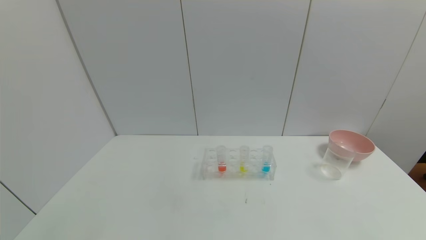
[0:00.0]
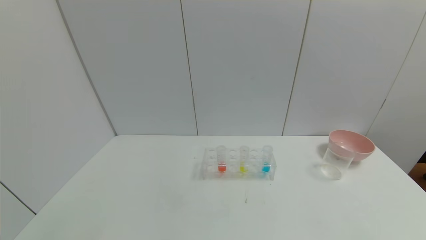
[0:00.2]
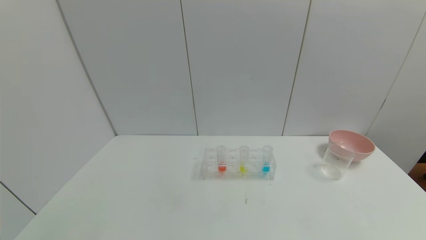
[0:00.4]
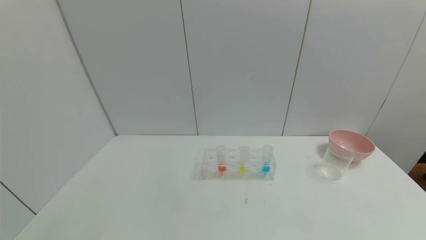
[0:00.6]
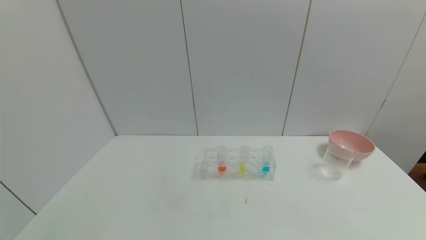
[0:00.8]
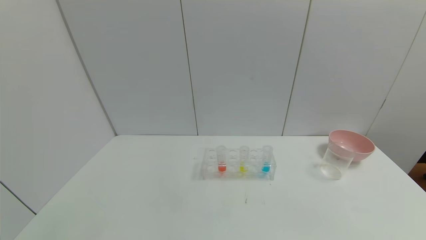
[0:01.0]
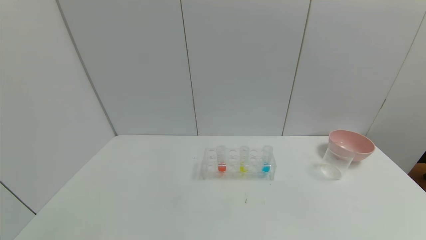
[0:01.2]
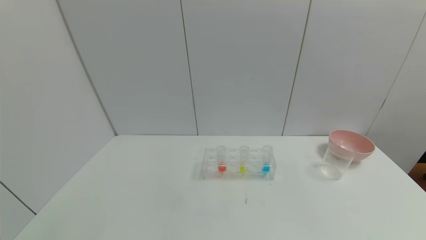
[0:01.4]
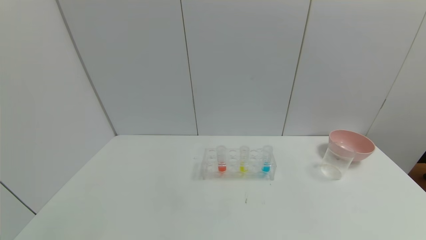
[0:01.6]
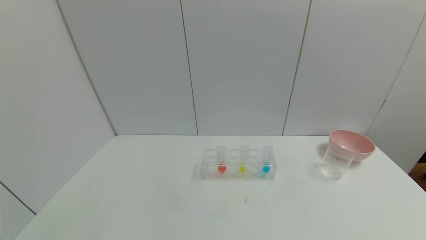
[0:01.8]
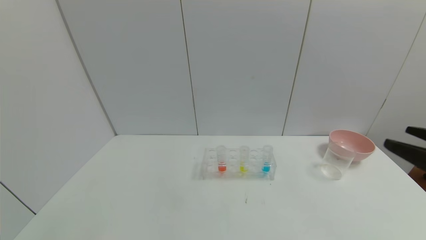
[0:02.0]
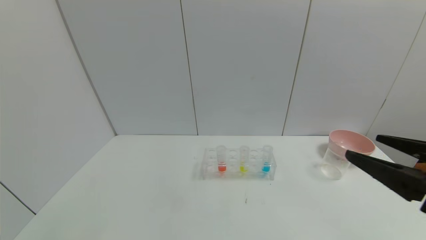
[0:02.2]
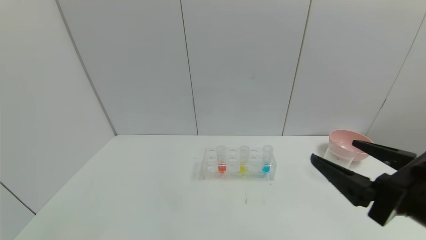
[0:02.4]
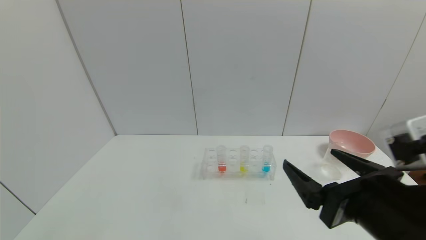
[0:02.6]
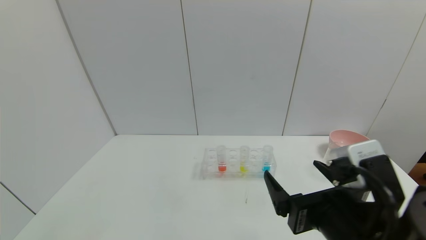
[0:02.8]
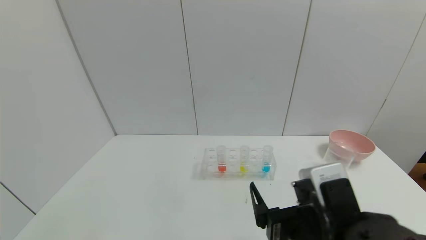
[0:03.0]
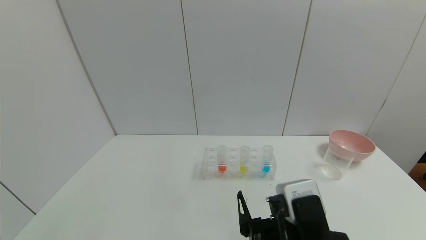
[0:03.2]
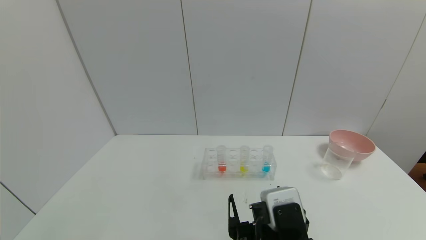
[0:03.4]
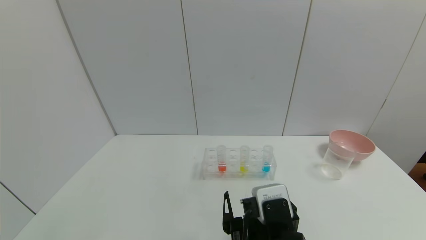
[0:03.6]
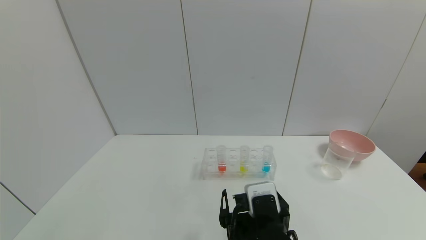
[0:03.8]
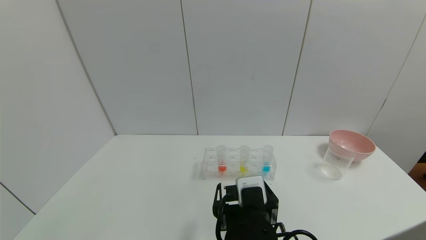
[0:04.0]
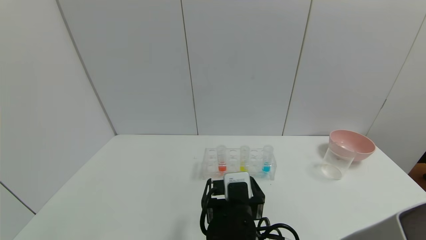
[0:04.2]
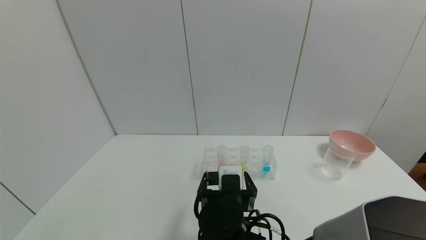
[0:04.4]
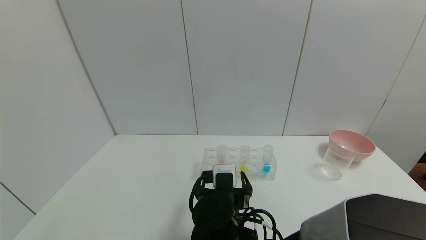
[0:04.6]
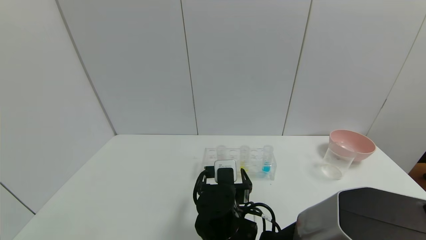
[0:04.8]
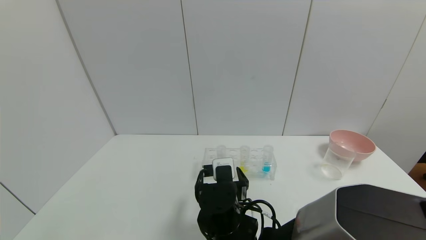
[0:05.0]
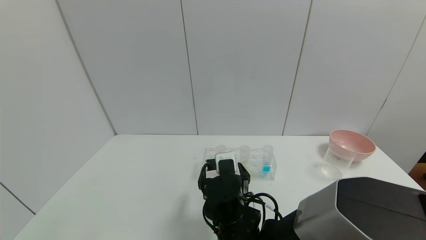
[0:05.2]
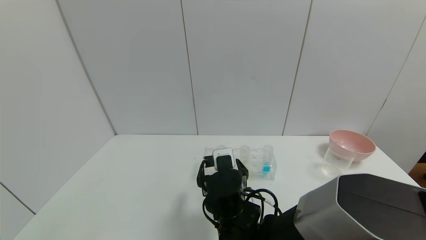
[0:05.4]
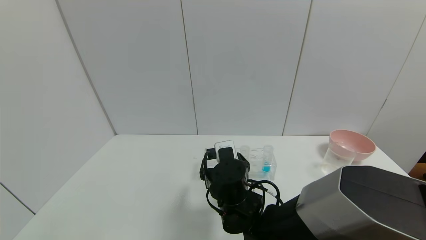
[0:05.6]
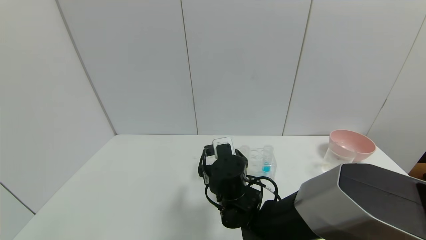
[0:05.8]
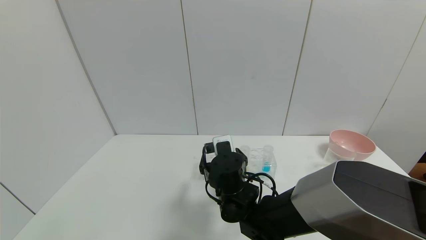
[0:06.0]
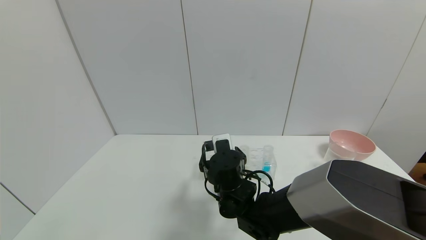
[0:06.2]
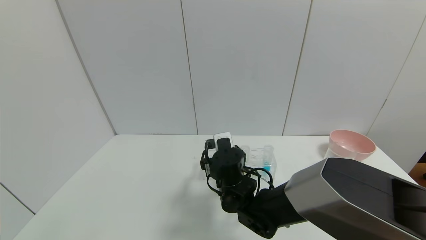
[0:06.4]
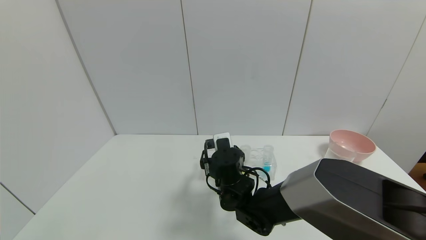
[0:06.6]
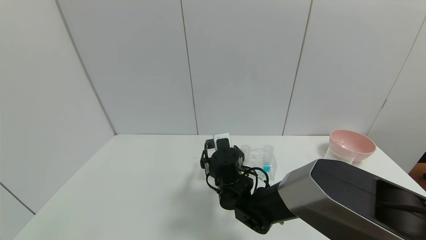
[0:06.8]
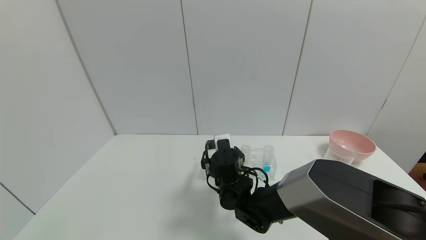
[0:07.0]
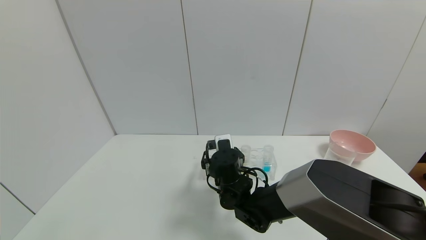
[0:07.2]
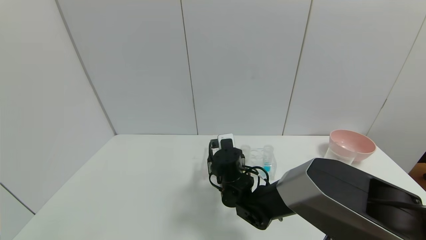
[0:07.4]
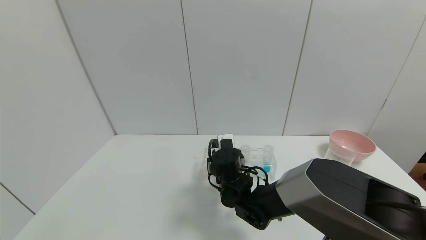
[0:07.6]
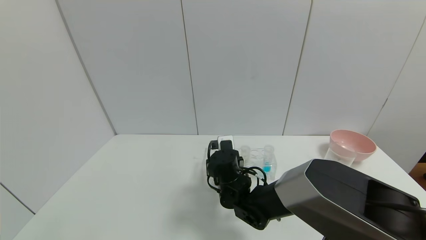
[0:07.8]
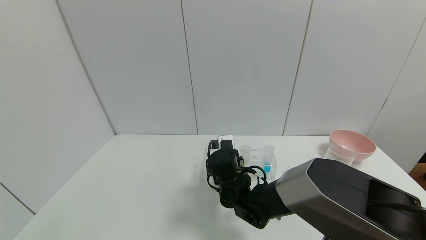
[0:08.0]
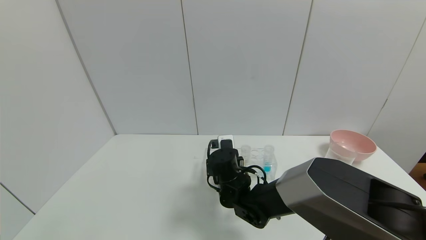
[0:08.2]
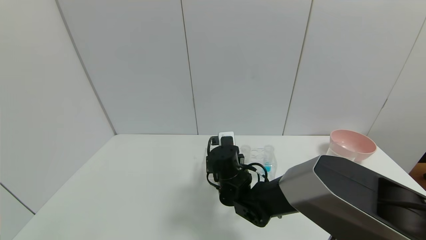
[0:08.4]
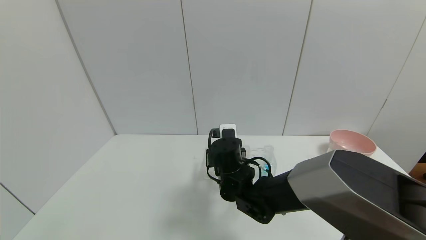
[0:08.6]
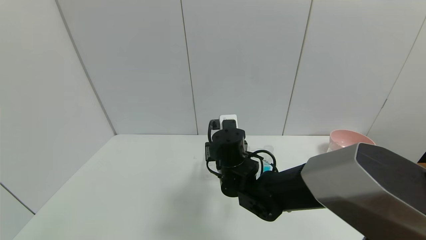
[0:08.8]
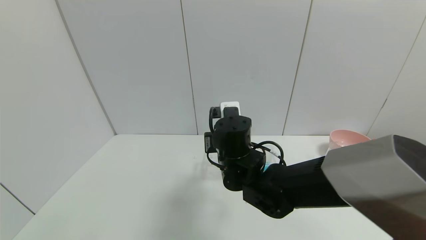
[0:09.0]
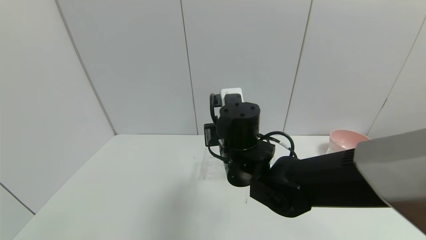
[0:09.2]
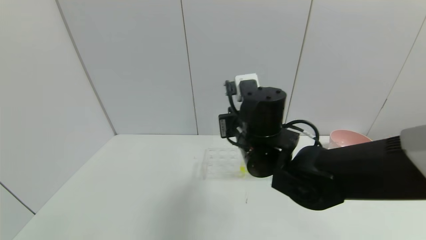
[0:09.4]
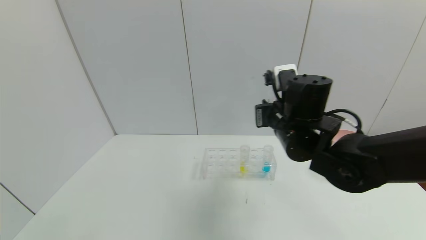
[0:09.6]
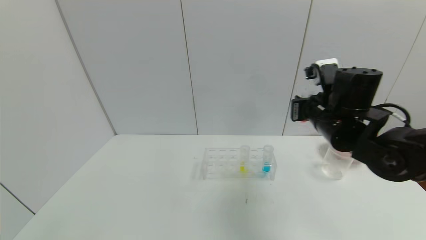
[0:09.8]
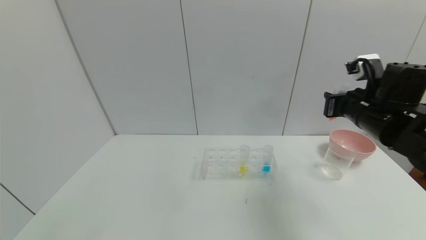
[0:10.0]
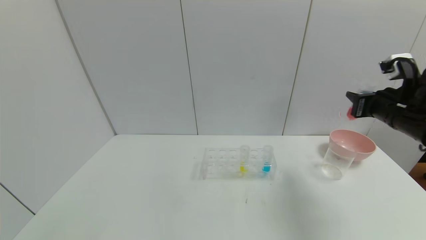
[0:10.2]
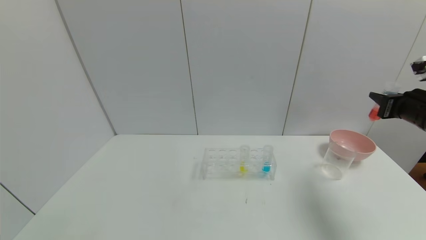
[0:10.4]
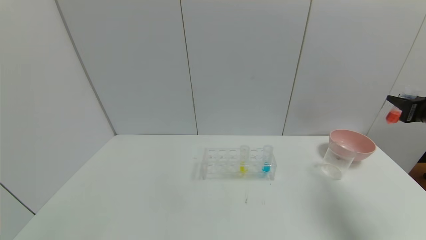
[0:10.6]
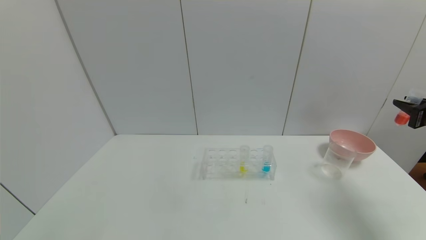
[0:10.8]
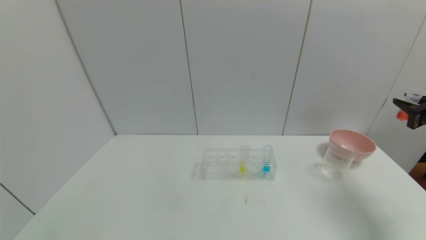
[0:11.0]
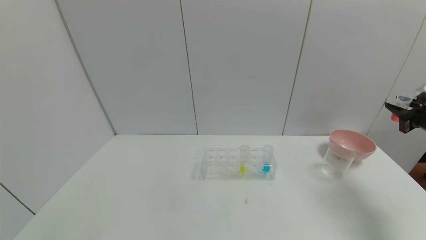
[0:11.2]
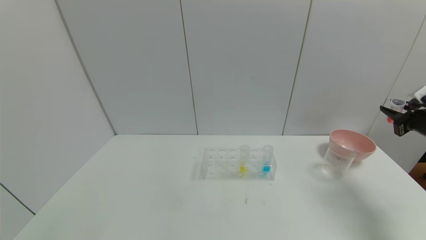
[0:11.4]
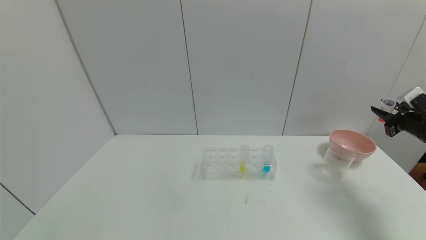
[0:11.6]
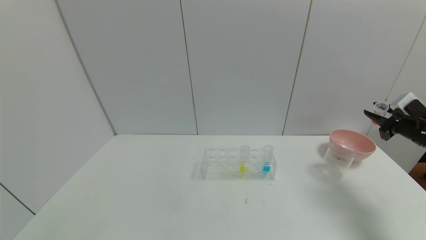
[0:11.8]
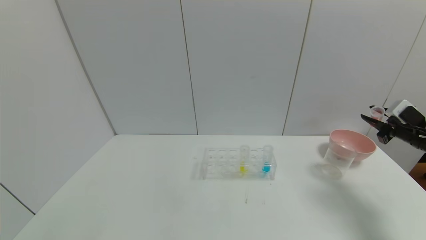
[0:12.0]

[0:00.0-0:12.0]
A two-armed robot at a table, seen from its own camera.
Task of the whole recording: pick up the test tube with yellow pigment and the test tube with red pigment by grippers and pour them into the beaker.
Step, 0:00.0 to 0:11.2: Pick up the test tube containing the red reagent with right gripper.
0:01.6 to 0:03.0: The right gripper moves to the left and downward, some 25 cm.
0:03.0 to 0:04.4: The right gripper heads to the left, forward and downward, covering roughly 15 cm.
0:04.4 to 0:06.0: The right gripper goes some 10 cm forward.
0:06.0 to 0:07.6: The right gripper ends up about 5 cm from where it was, and closes up.
0:07.6 to 0:09.0: The right gripper travels upward by roughly 10 cm.
0:09.0 to 0:10.4: The right gripper heads to the right, covering roughly 40 cm.
0:10.4 to 0:12.0: The right gripper moves to the right and downward, approximately 10 cm.

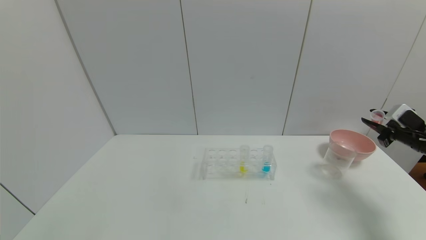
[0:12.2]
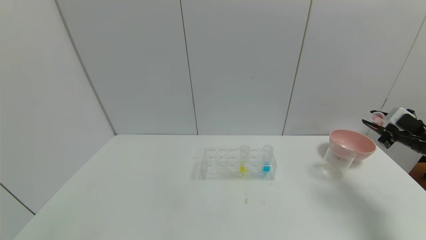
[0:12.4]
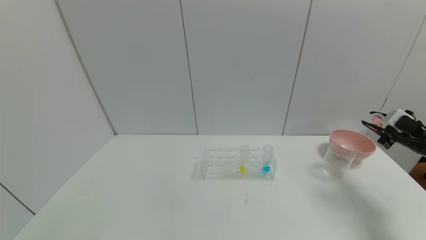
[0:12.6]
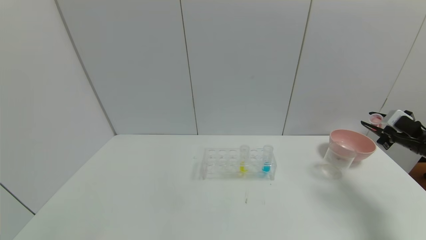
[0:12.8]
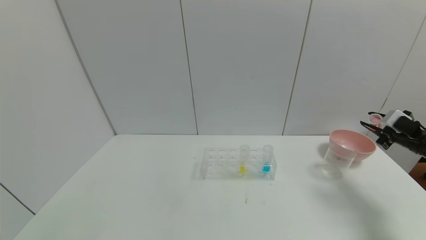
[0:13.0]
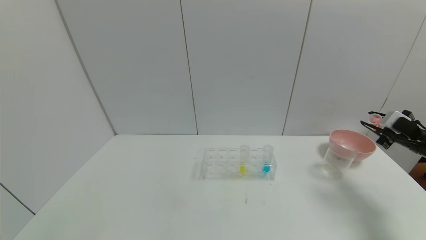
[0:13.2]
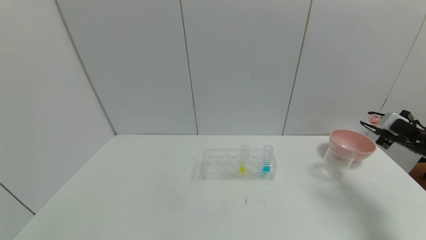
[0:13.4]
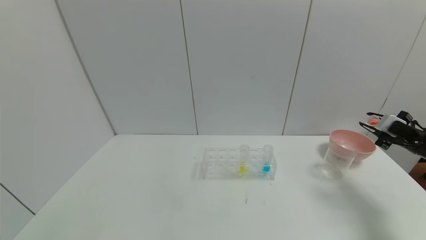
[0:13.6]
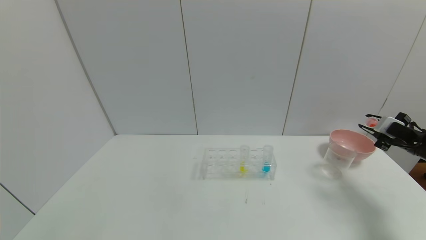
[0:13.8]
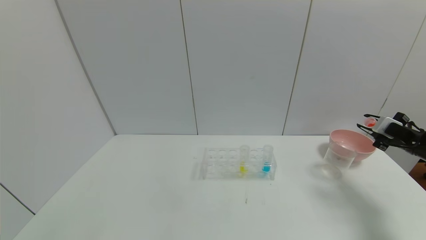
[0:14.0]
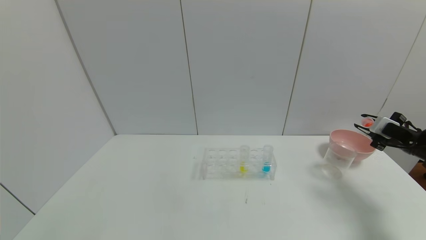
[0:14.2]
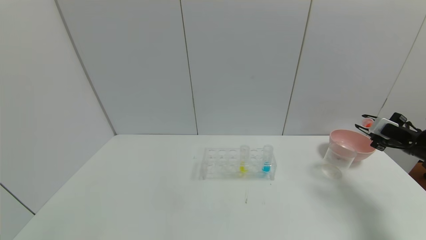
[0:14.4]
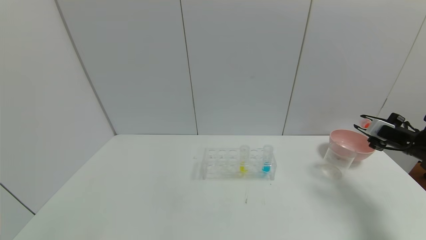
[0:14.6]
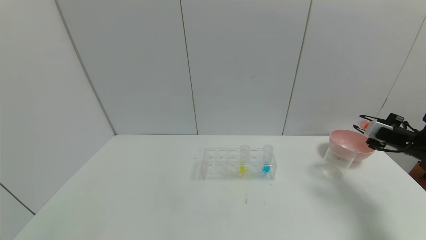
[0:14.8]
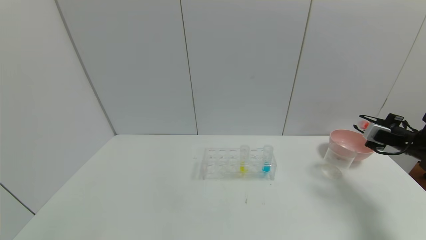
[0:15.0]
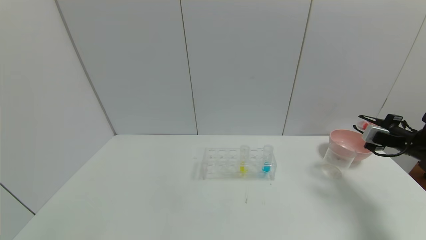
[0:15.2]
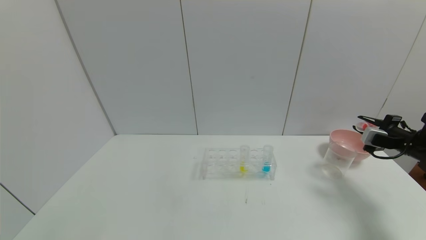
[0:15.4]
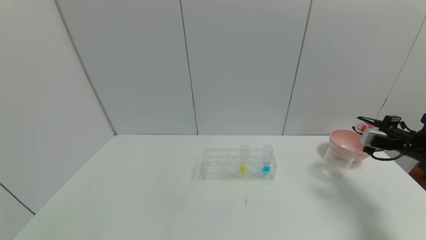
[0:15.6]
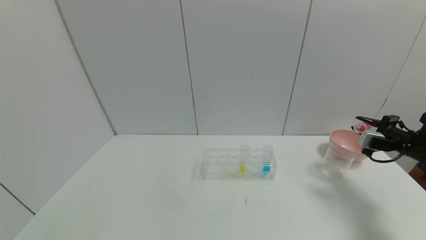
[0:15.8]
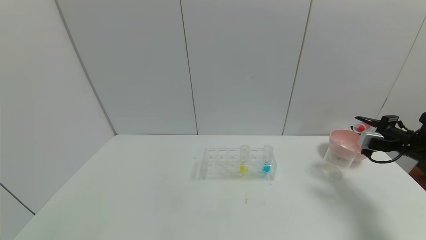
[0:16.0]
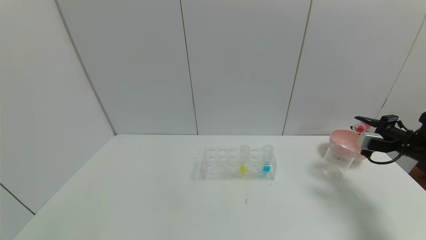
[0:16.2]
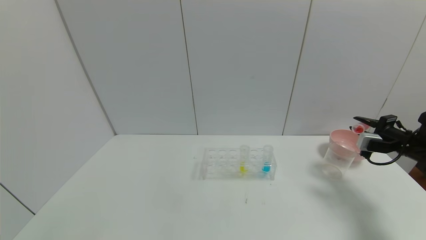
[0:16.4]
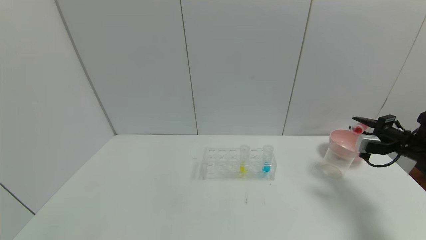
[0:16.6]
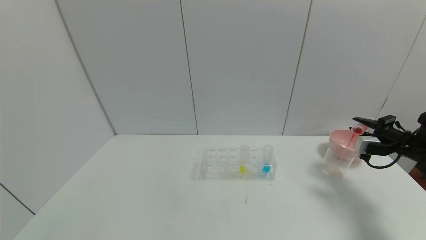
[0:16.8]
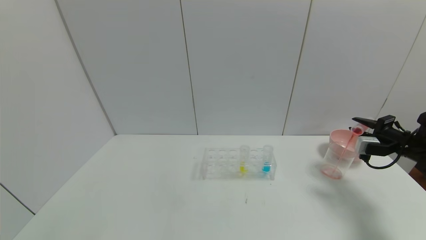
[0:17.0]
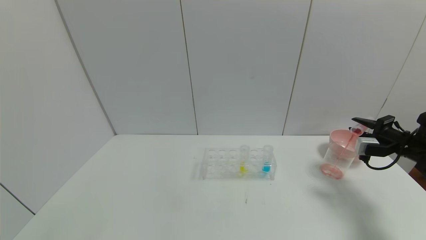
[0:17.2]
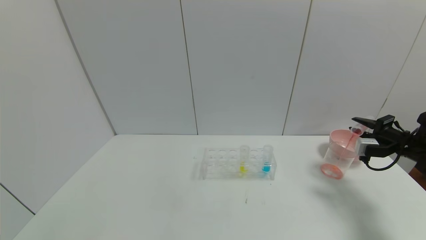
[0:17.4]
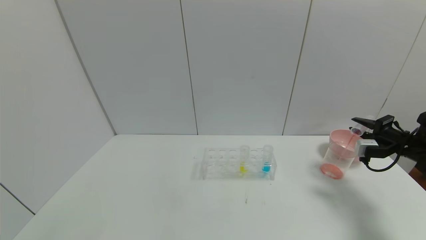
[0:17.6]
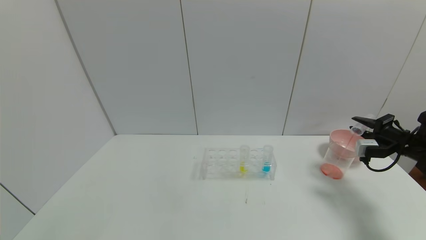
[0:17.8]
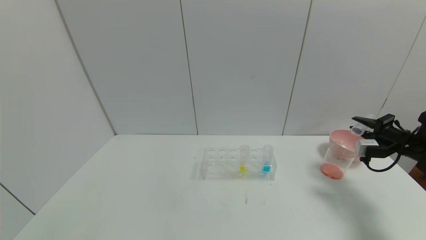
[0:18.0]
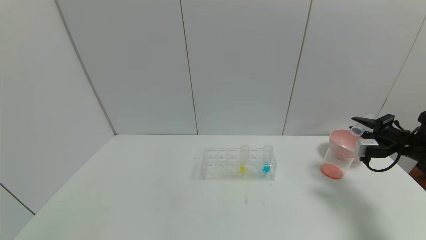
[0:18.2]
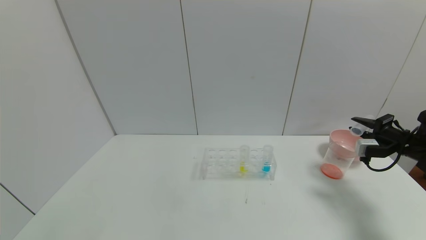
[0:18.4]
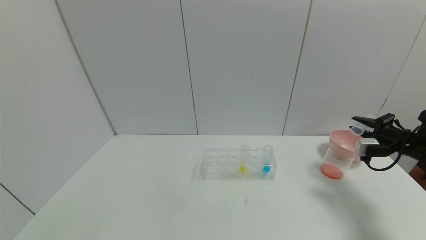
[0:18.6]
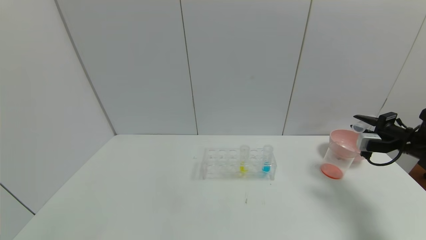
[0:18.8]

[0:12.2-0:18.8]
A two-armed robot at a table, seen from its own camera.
Task of the whole recording: pick up the test tube with yellow pigment and the test tube with red pigment by grippers and pour them into the beaker.
0:12.2 to 0:13.8: The grippers make only small movements.
0:13.8 to 0:15.4: The grippers make only small movements.
0:15.4 to 0:17.2: There are only small adjustments of the grippers.
0:17.2 to 0:18.8: The grippers make only small movements.
